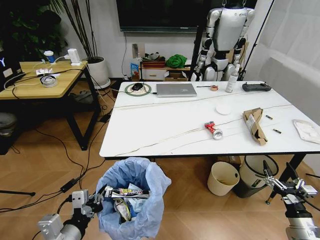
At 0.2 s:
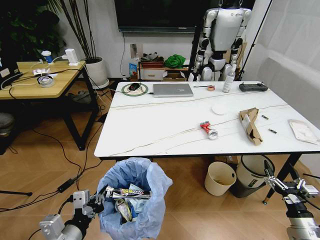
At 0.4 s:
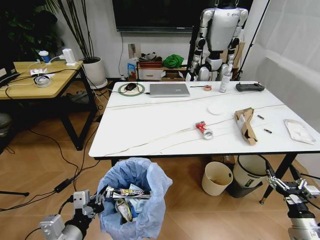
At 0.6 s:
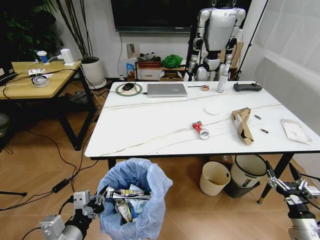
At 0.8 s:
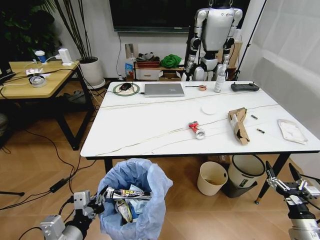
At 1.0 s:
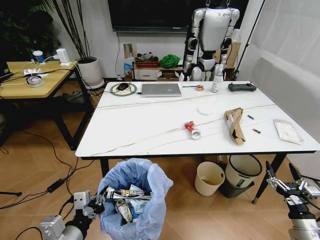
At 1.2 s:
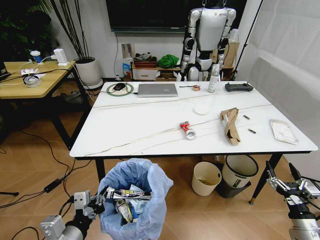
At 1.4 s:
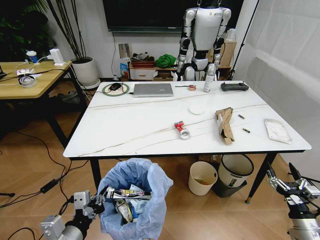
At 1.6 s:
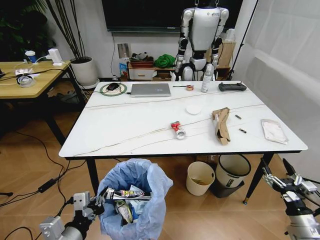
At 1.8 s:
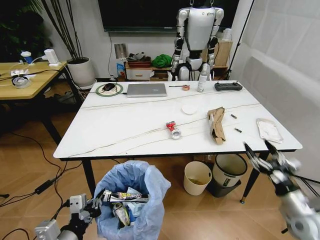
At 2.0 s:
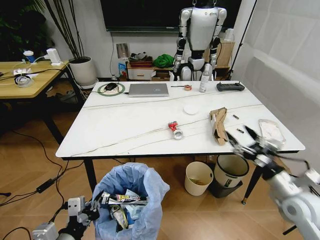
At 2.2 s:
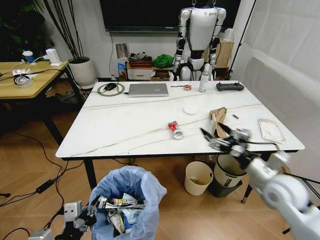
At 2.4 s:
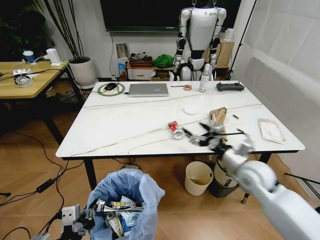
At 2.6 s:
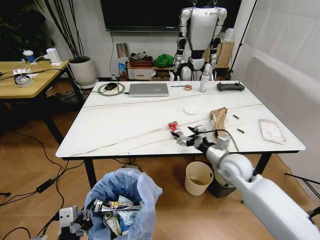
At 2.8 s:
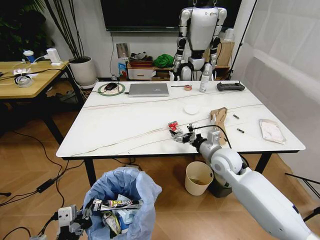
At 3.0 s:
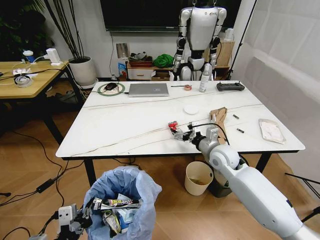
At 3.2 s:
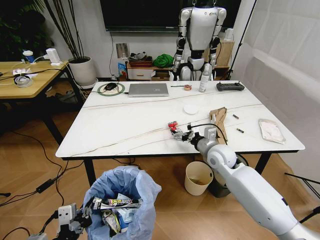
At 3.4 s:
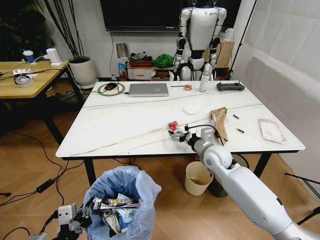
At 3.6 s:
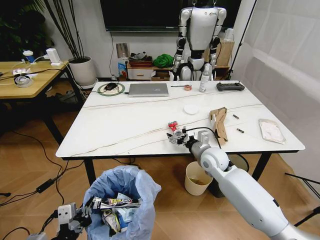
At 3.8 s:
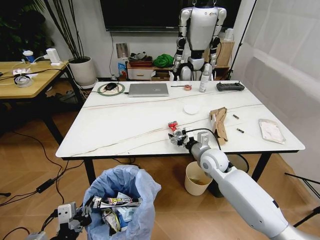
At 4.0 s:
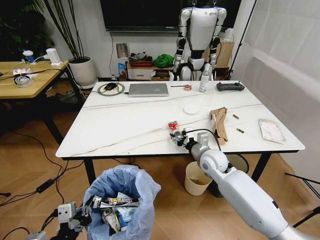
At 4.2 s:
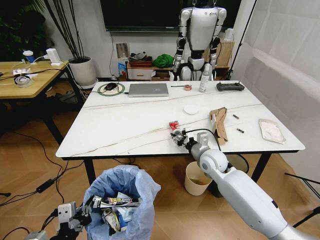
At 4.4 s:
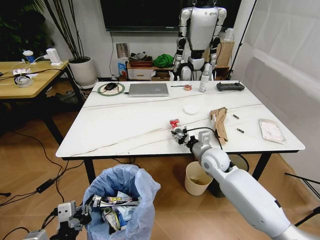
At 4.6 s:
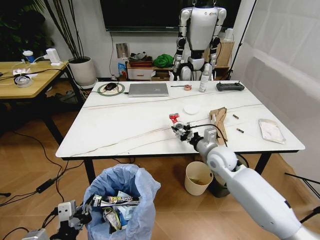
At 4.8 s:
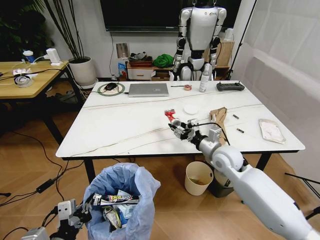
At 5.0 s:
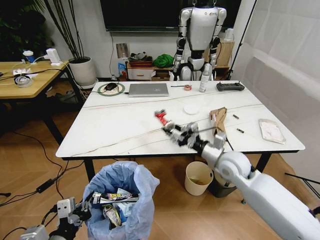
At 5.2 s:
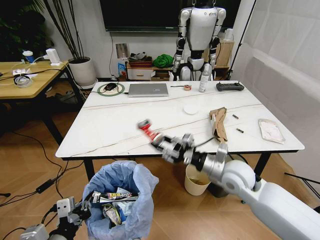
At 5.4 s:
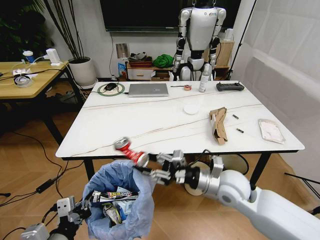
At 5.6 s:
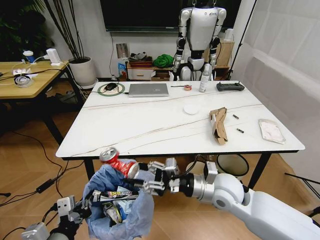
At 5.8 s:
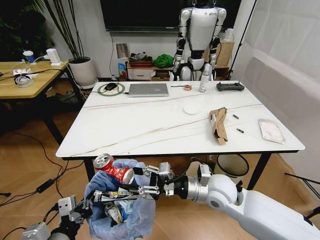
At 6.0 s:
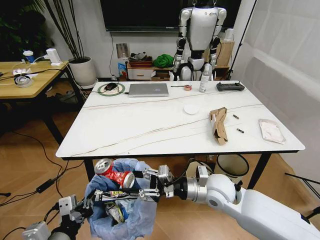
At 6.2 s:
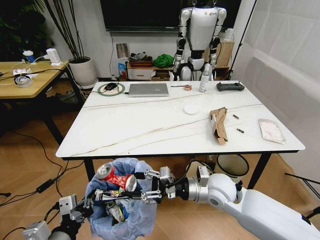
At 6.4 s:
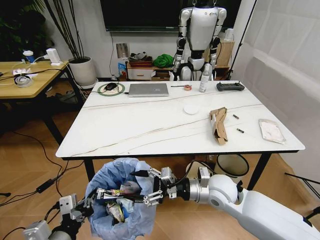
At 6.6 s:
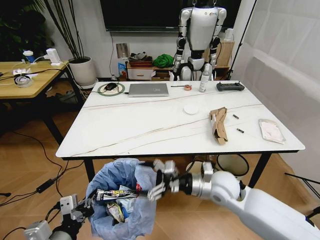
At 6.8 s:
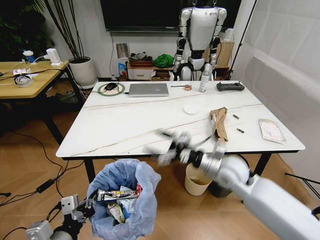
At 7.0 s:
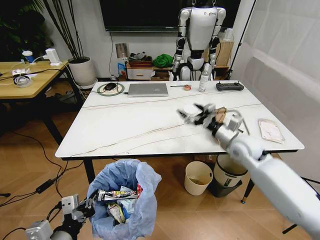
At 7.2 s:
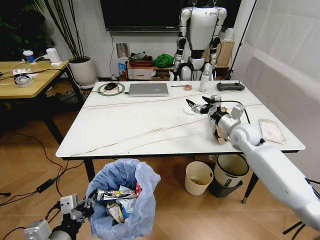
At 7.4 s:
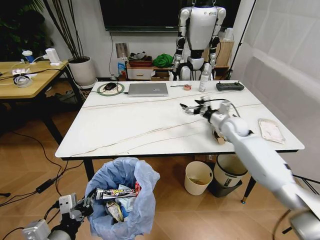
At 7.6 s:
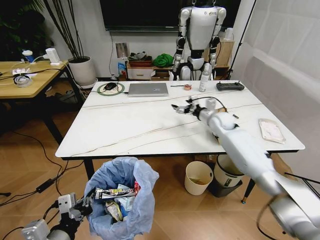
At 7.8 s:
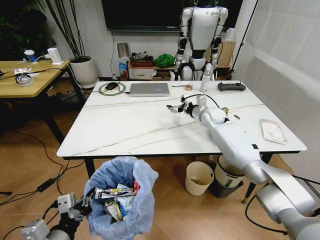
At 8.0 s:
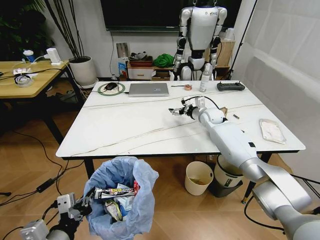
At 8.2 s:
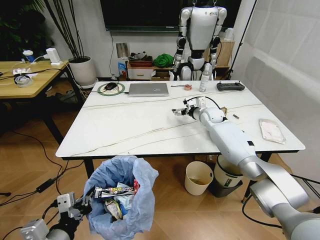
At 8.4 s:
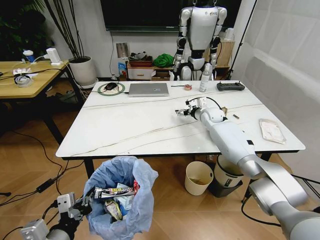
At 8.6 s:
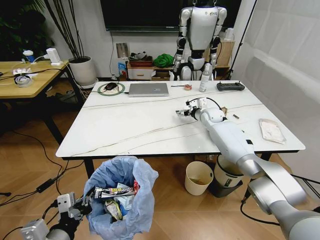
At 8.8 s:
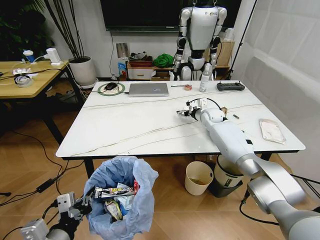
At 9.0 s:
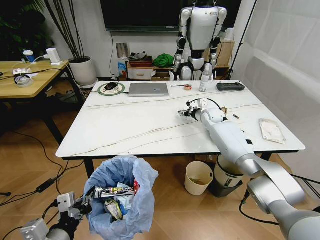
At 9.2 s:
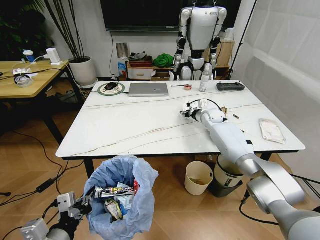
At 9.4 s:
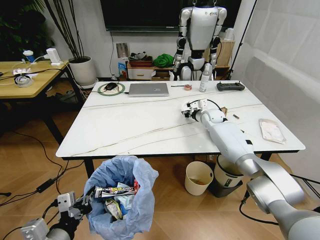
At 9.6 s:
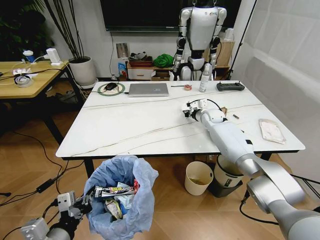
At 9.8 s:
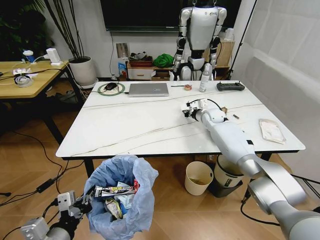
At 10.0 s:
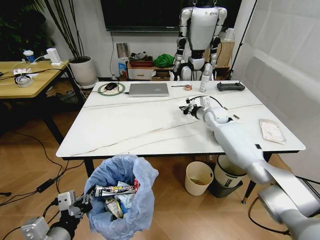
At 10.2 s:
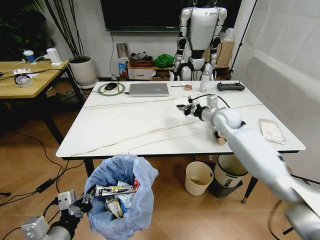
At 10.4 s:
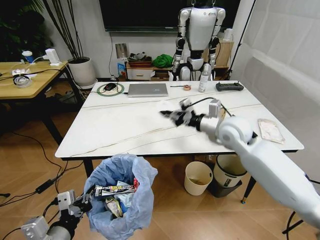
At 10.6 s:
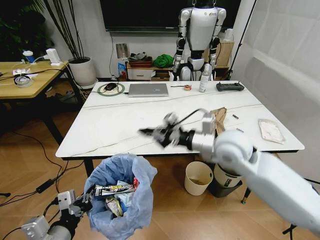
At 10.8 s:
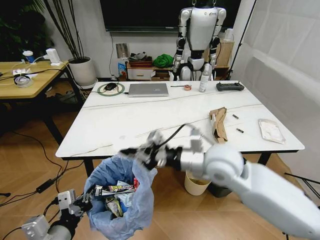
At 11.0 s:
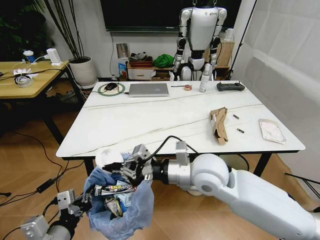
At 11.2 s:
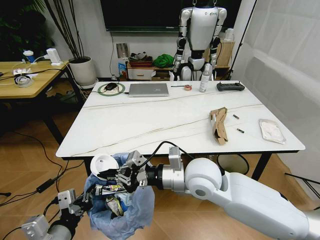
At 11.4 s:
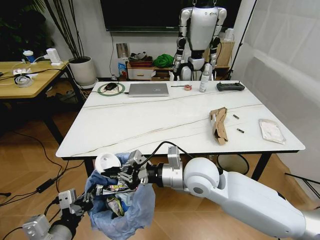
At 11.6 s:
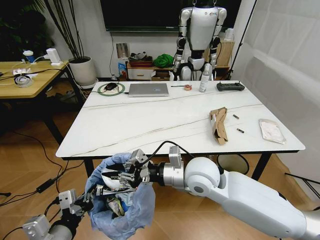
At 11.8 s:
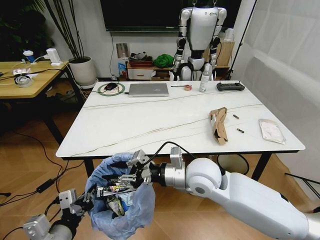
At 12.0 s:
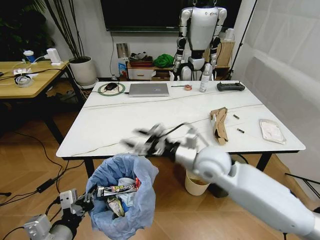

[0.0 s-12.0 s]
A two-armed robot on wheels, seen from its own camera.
Task of the whole recording: Pick up the trash bin and place the trash from the table into it.
1.6 to 3.0 s: The right gripper heads forward, to the left and upward, covering about 35 cm.
3.0 to 4.4 s: The right gripper closes its fingers.
4.4 to 6.0 s: The right gripper moves backward, roughly 10 cm.
6.0 to 7.6 s: The right gripper heads forward, covering some 25 cm, and opens.
7.6 to 9.0 s: The right gripper travels forward by approximately 5 cm, and closes.
9.0 to 10.4 s: The right gripper is displaced backward and upward by approximately 20 cm, and closes.
10.4 to 12.0 s: The right gripper moves backward and to the left, about 15 cm, and opens up.

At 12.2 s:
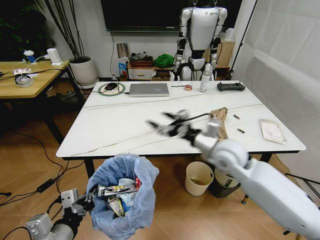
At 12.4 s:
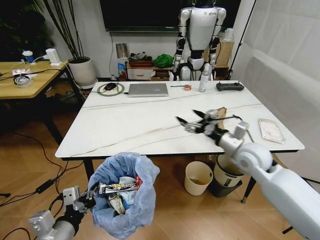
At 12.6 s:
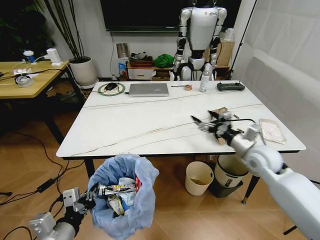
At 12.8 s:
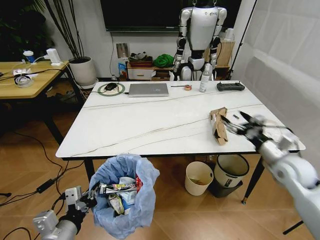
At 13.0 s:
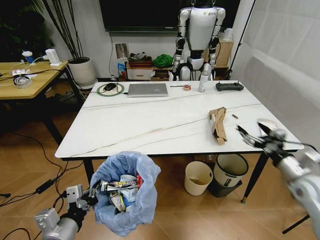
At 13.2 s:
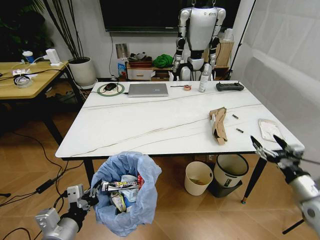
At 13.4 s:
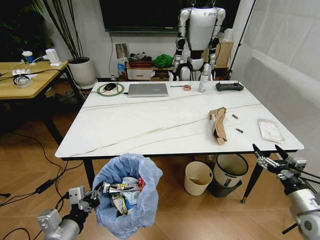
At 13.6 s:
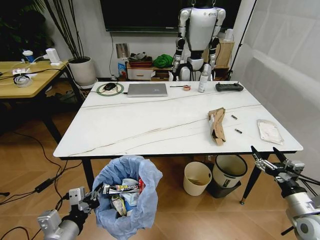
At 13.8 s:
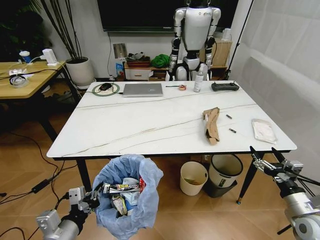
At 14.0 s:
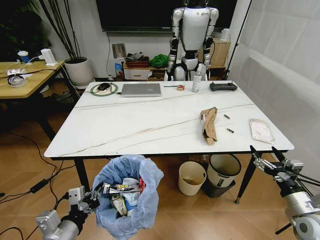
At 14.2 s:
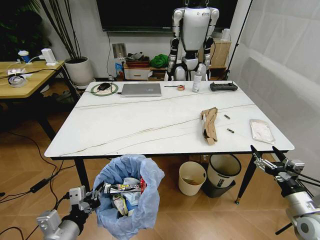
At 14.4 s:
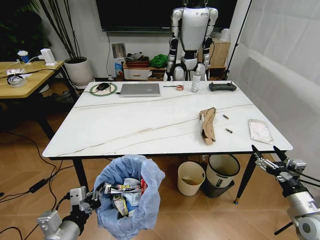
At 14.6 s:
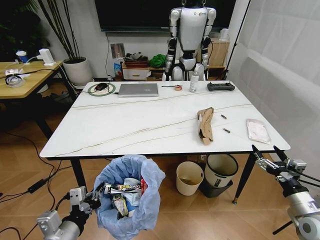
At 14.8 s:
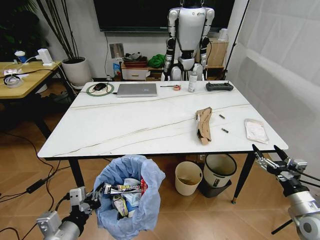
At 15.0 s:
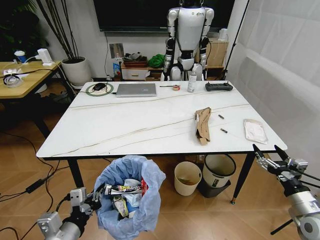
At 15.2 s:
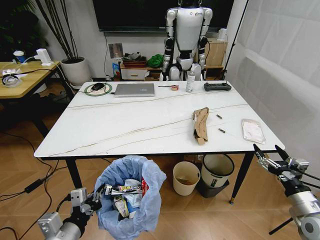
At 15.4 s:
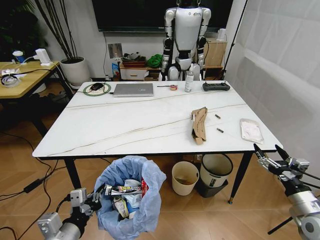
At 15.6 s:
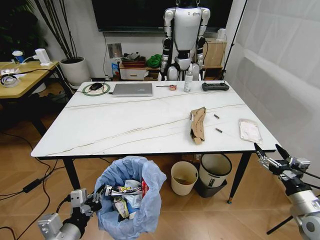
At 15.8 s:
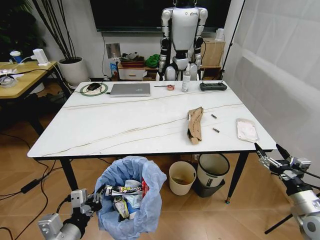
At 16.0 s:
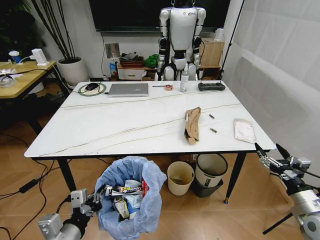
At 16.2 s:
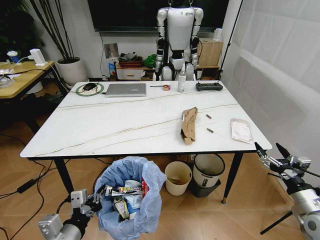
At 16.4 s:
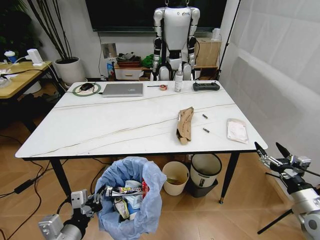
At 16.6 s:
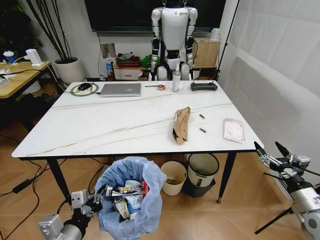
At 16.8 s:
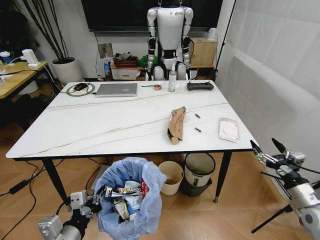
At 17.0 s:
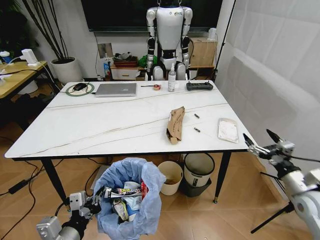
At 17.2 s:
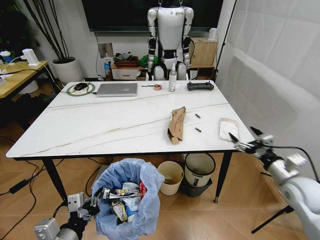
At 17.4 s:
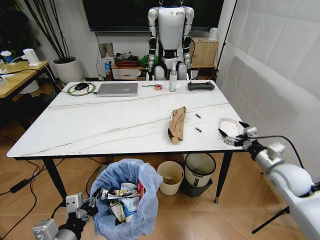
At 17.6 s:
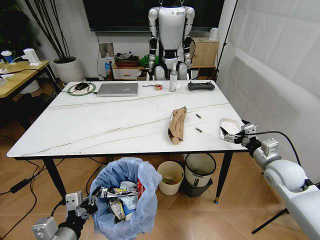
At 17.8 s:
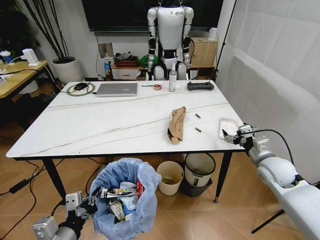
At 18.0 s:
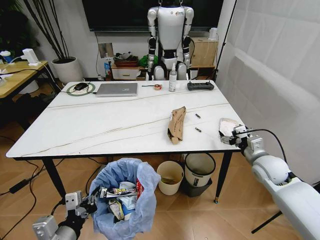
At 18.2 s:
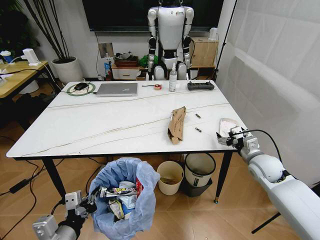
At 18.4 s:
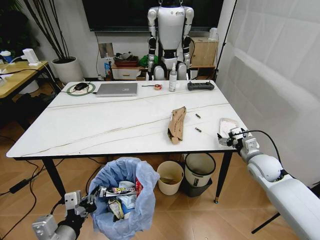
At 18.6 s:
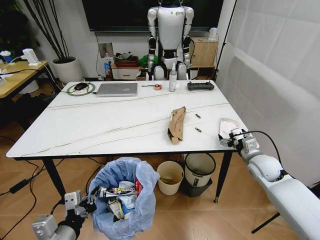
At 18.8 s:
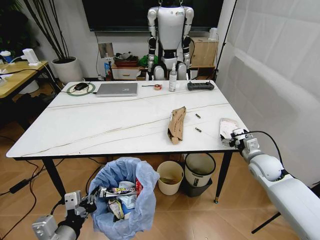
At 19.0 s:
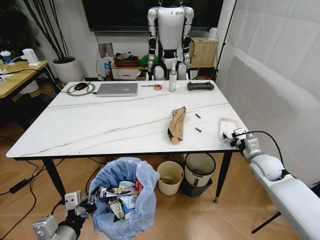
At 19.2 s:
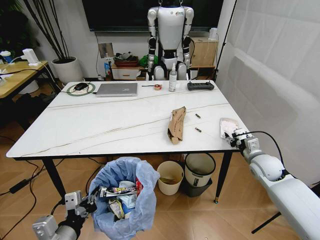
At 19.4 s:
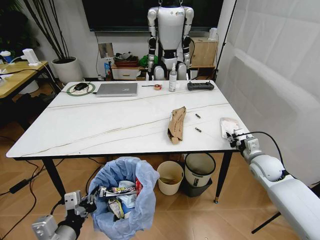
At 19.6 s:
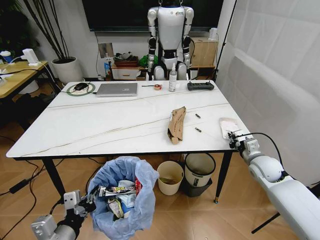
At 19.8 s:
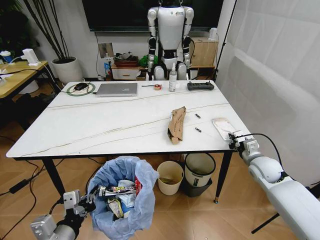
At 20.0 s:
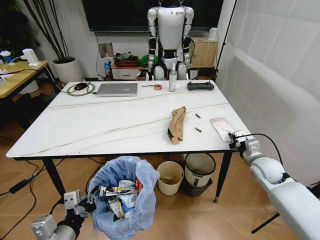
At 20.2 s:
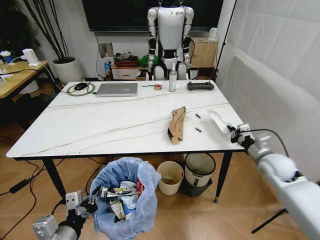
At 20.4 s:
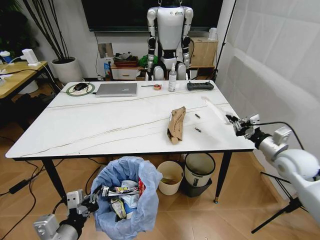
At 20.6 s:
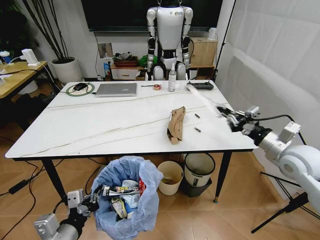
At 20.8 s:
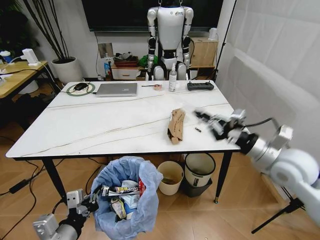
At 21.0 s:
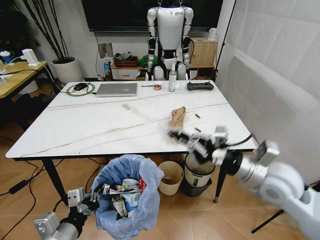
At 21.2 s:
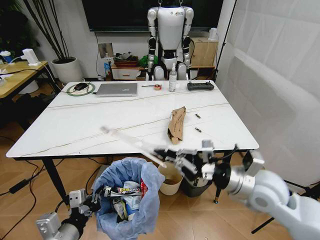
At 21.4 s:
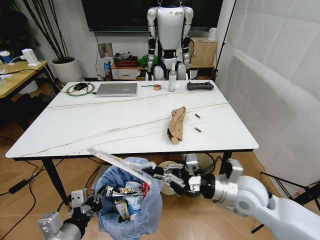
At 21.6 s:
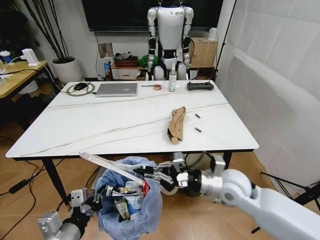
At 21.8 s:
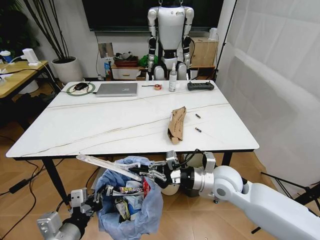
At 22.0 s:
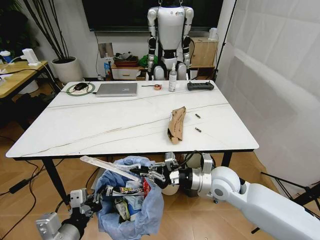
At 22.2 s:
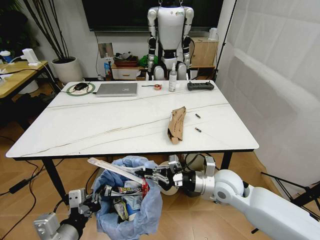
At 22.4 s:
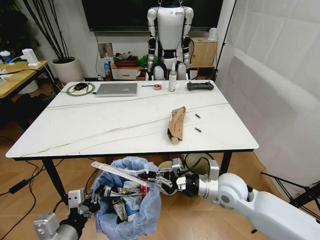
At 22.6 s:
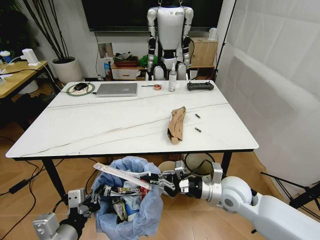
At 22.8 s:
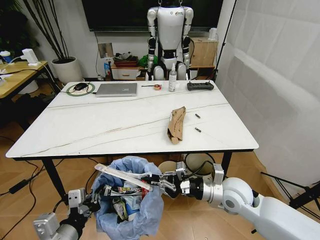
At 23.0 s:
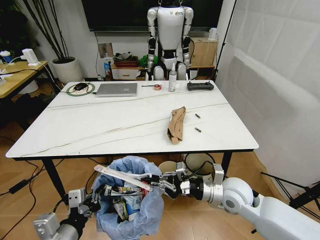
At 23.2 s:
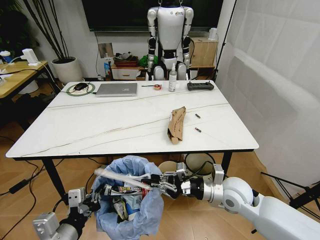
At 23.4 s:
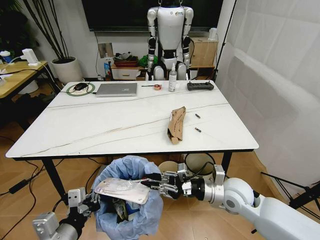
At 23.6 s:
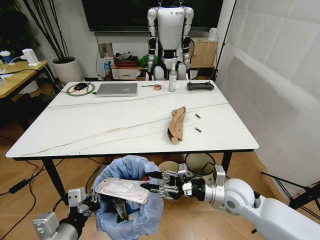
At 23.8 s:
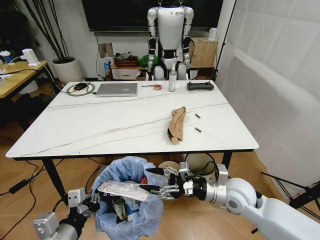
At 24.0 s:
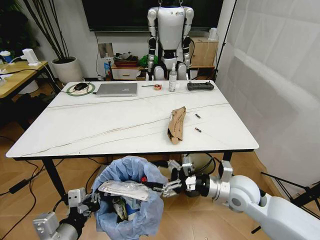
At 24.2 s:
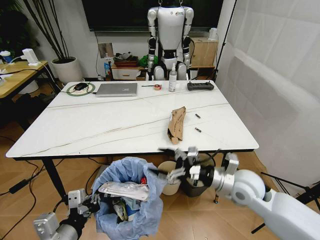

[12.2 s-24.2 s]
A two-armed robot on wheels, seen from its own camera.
Task of the whole recording: Pick up the trash bin and place the trash from the table into it.
12.2 to 13.8 s: The right gripper travels to the right, backward and downward by some 30 cm.
16.6 to 18.2 s: The right gripper goes about 20 cm forward and to the left.
18.2 to 19.8 s: The right gripper closes its fingers.
19.8 to 21.2 s: The right gripper heads to the left, backward and upward, covering some 20 cm.
21.2 to 22.6 s: The right gripper heads downward, covering approximately 10 cm.
22.6 to 24.2 s: The right gripper opens up.
